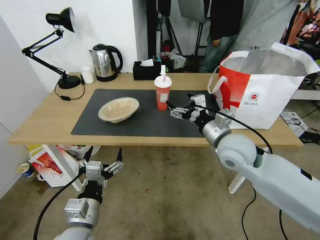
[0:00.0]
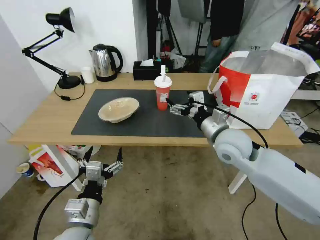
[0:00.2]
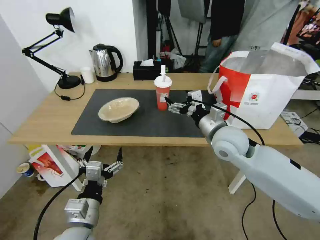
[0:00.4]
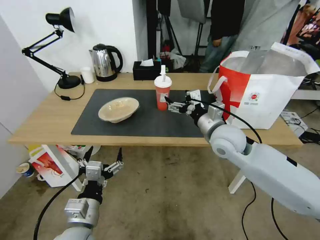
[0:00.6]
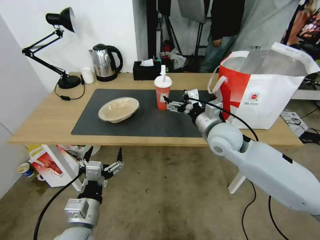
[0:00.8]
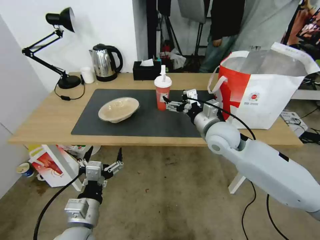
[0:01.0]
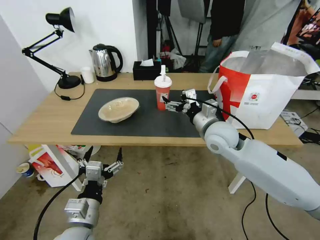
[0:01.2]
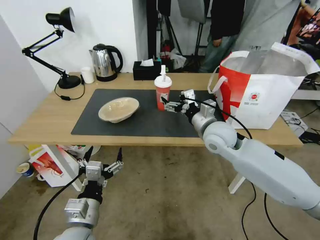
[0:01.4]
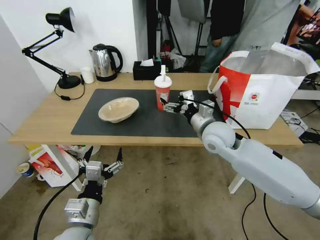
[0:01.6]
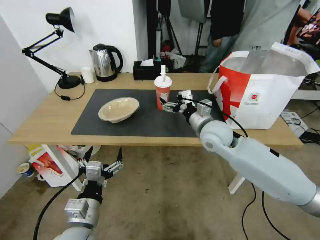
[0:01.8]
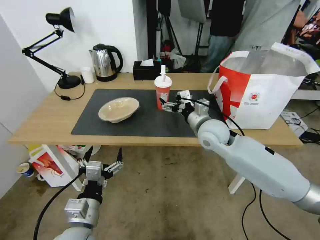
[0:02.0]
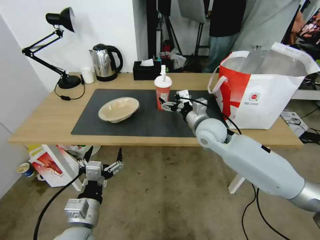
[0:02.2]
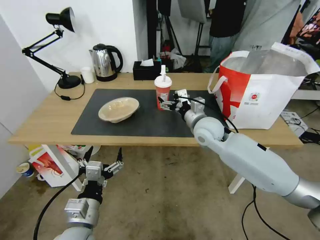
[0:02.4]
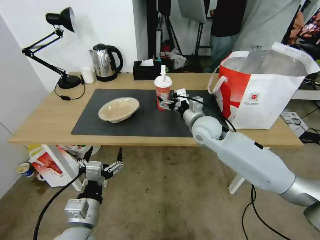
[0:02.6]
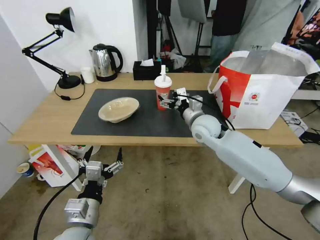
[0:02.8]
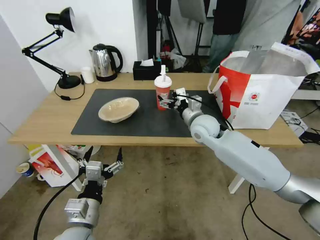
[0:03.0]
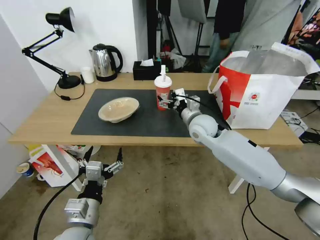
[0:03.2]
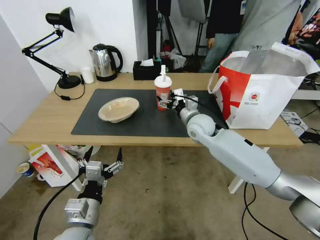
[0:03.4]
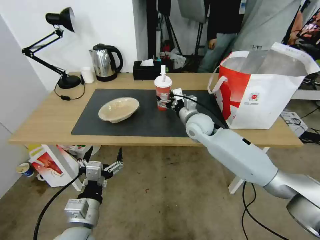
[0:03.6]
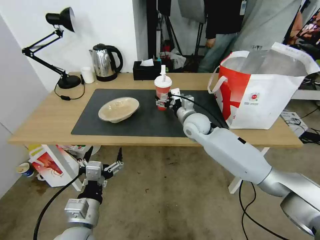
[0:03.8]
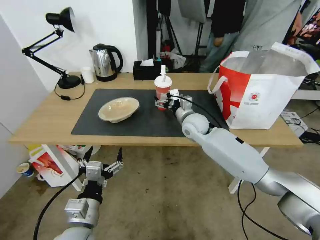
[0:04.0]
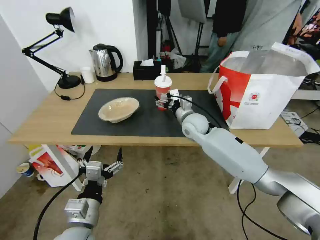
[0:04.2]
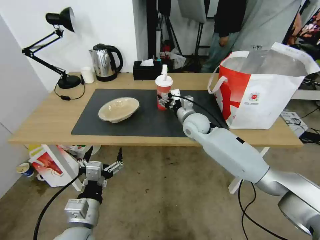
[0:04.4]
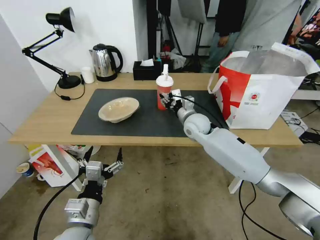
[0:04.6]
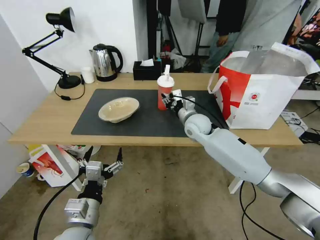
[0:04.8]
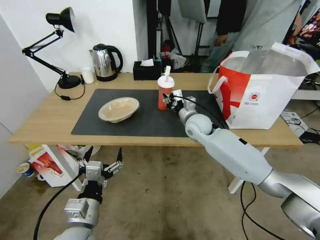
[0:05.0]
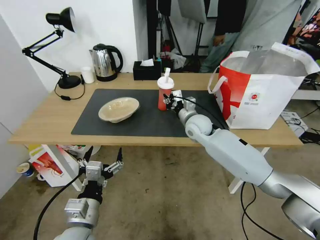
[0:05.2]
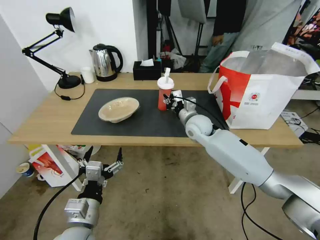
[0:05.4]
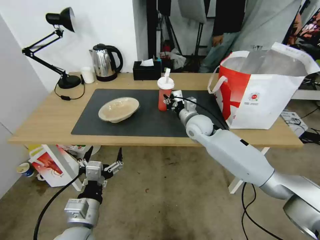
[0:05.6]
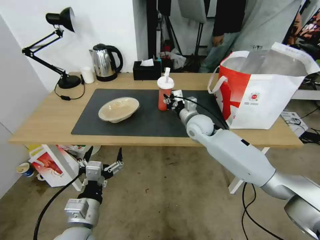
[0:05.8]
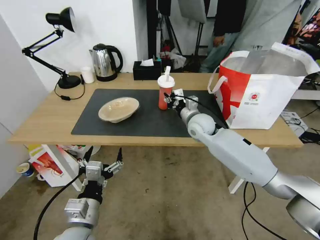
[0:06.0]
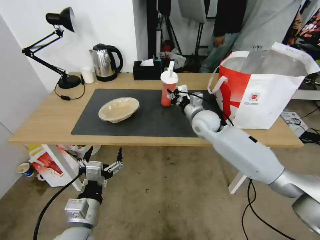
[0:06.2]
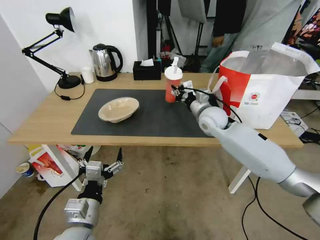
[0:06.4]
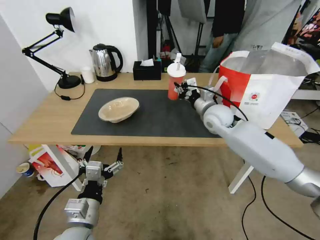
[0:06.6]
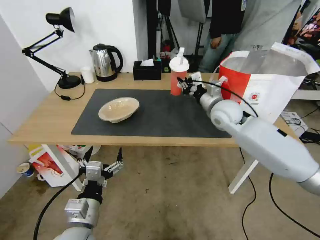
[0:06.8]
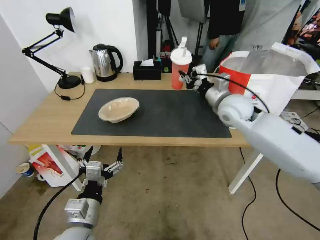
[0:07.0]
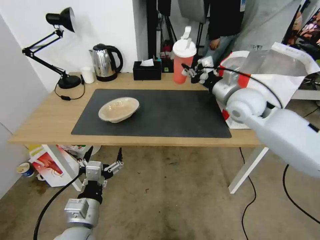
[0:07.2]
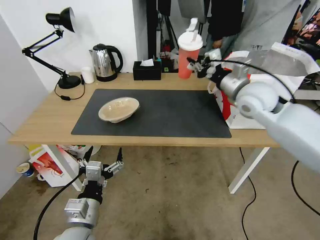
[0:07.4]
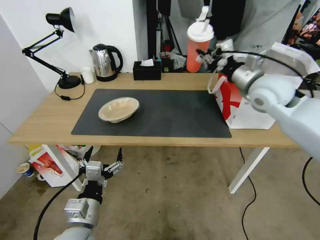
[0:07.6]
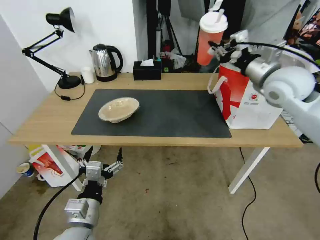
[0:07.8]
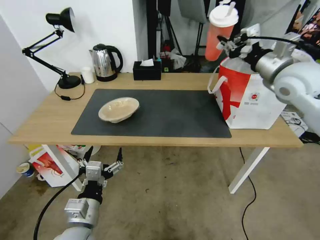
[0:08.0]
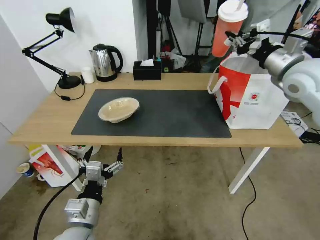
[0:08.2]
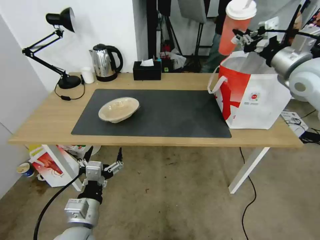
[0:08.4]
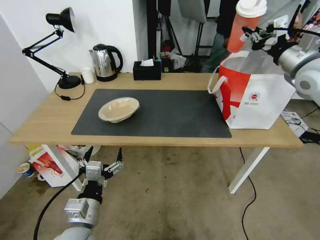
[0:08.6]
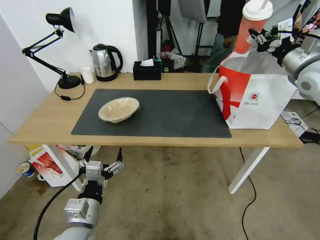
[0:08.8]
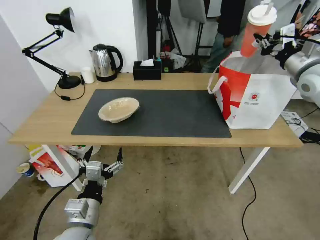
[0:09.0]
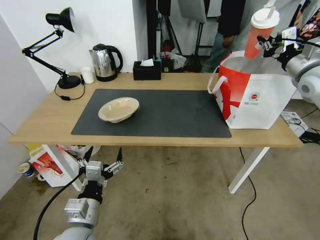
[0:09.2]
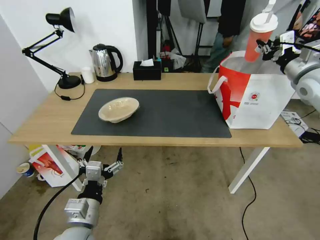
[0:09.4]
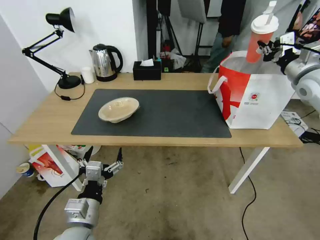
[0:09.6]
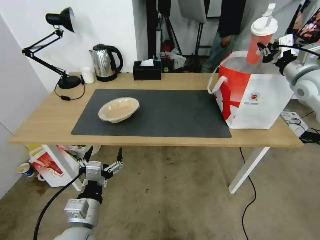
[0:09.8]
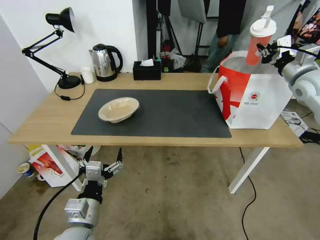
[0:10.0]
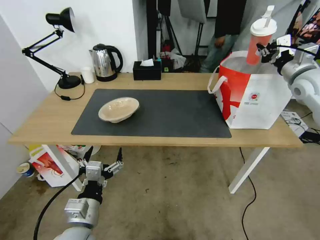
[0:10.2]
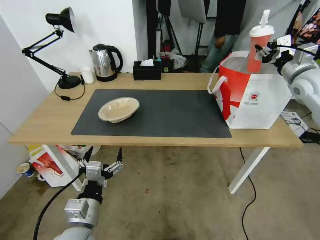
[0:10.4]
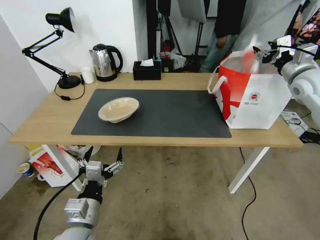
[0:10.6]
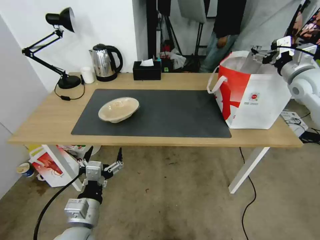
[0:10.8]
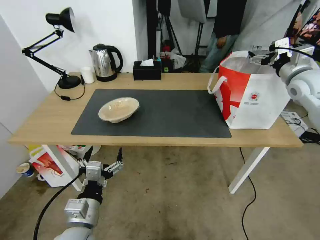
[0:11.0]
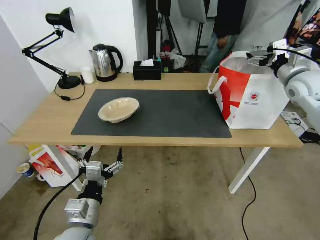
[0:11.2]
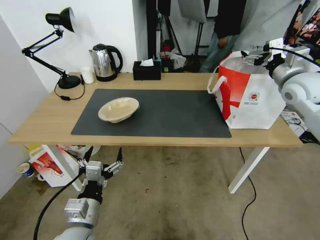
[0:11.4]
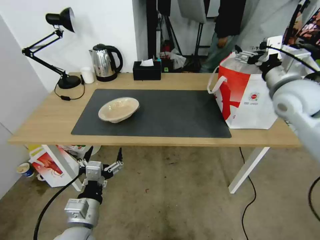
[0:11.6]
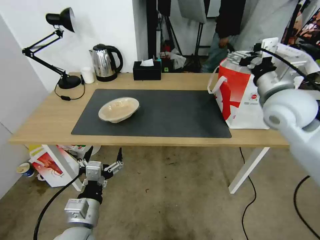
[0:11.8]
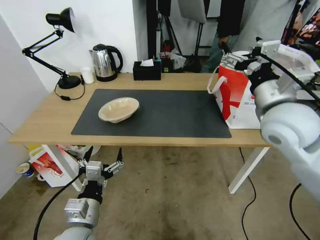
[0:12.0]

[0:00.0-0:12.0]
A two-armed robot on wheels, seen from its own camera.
Task of the whole recording: Pick up the trash from the table and place it into the takeout bag.
0:00.0 to 0:01.6: The right gripper is displaced forward by about 5 cm.
0:01.6 to 0:03.0: The right gripper heads forward, covering approximately 5 cm.
0:03.0 to 0:04.4: The right gripper moves about 5 cm.
0:04.4 to 0:06.0: The right gripper closes.
0:06.0 to 0:07.6: The right gripper moves upward and to the right, about 25 cm.
0:07.6 to 0:09.0: The right gripper goes about 15 cm to the right.
0:09.0 to 0:10.4: The grippers move only a little.
0:10.4 to 0:12.0: The right gripper is displaced to the left and backward by about 25 cm, and opens.

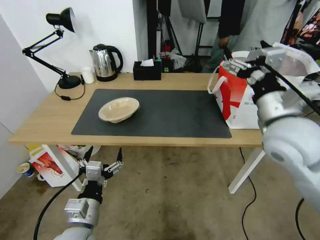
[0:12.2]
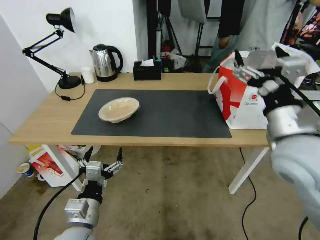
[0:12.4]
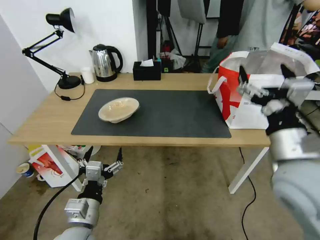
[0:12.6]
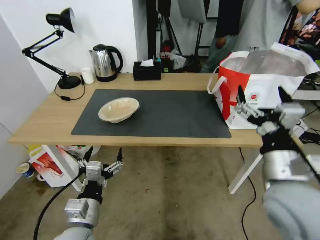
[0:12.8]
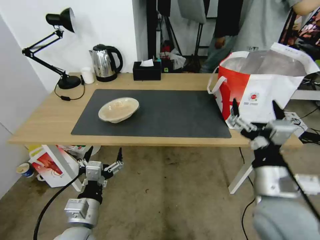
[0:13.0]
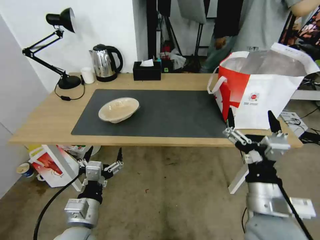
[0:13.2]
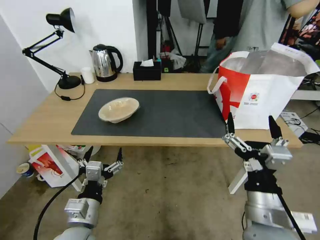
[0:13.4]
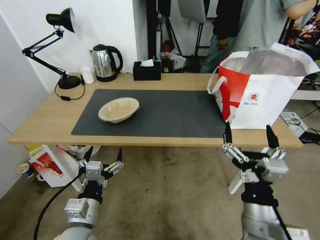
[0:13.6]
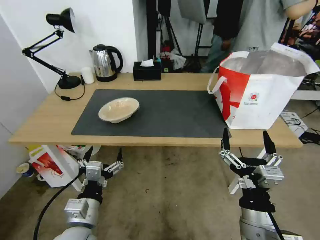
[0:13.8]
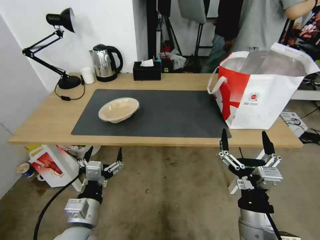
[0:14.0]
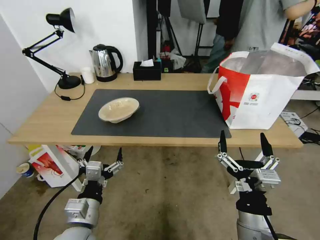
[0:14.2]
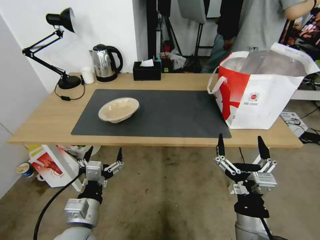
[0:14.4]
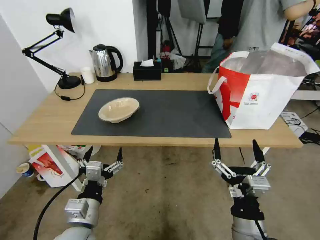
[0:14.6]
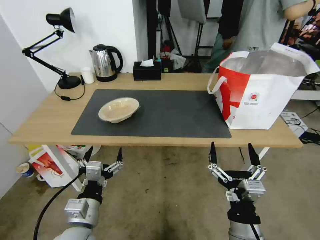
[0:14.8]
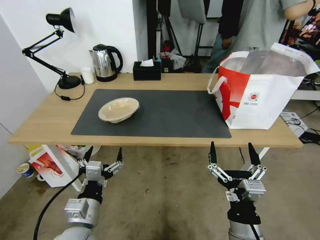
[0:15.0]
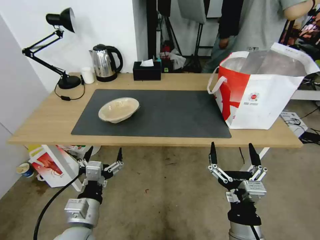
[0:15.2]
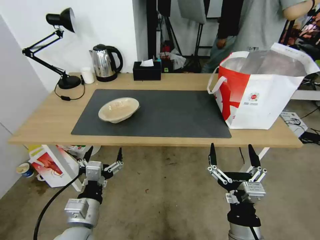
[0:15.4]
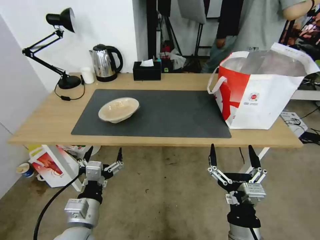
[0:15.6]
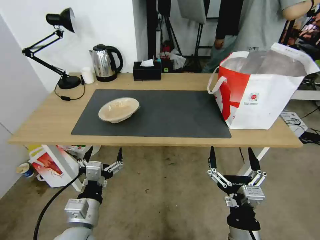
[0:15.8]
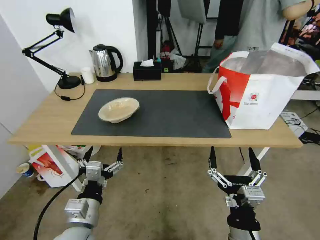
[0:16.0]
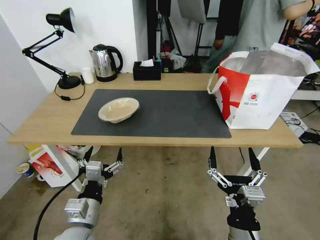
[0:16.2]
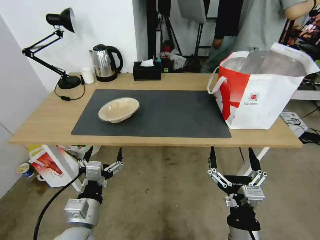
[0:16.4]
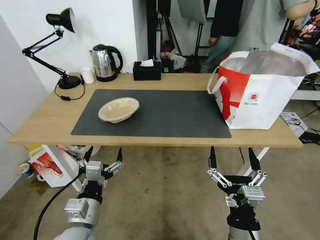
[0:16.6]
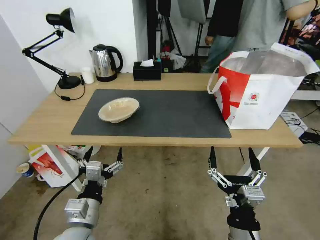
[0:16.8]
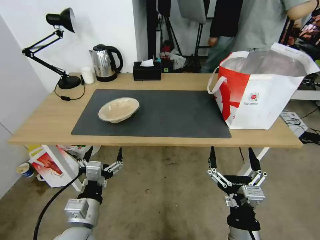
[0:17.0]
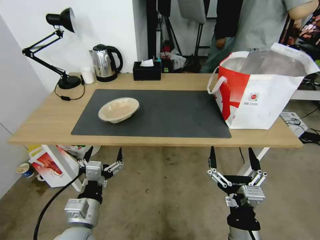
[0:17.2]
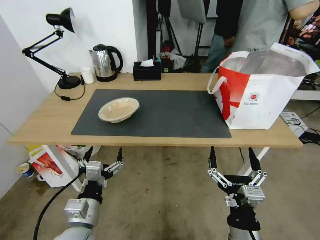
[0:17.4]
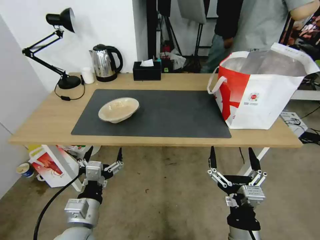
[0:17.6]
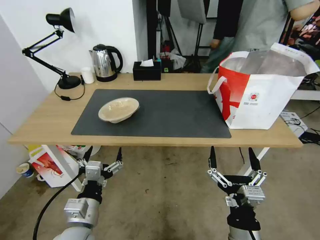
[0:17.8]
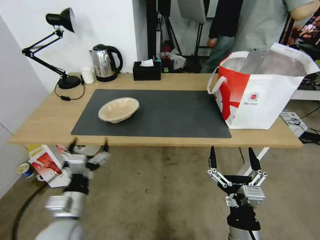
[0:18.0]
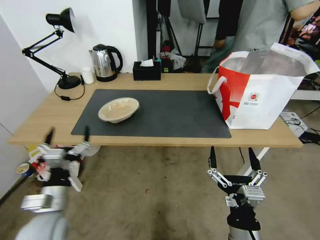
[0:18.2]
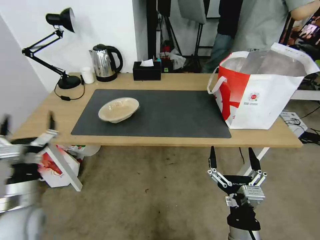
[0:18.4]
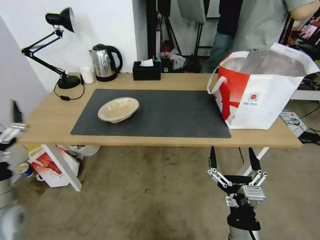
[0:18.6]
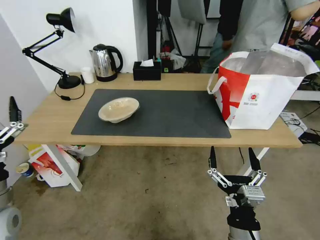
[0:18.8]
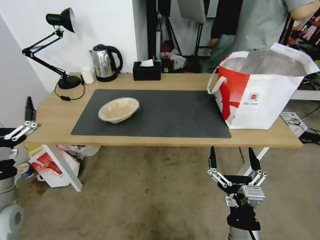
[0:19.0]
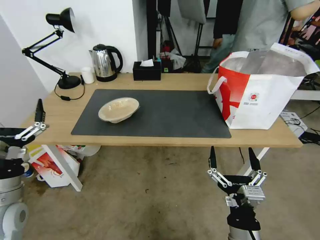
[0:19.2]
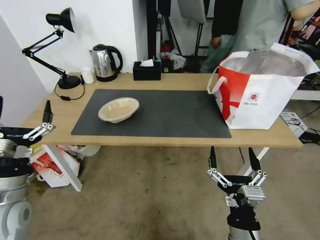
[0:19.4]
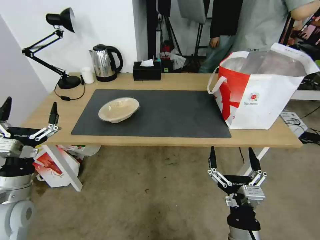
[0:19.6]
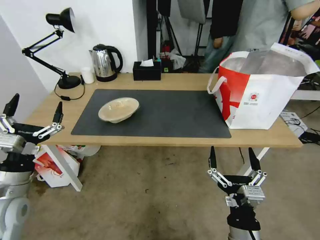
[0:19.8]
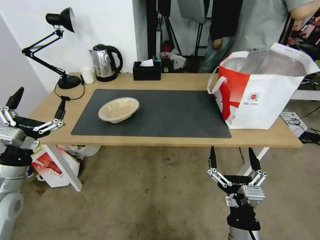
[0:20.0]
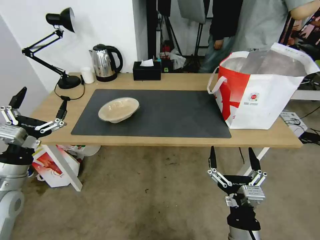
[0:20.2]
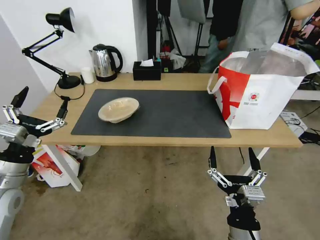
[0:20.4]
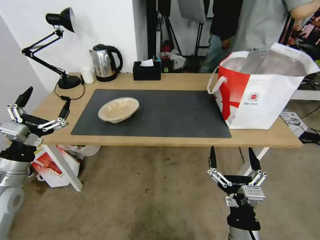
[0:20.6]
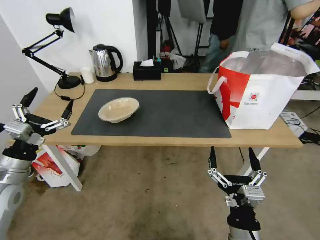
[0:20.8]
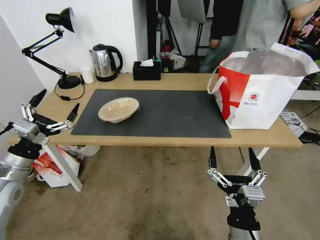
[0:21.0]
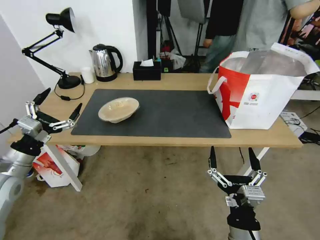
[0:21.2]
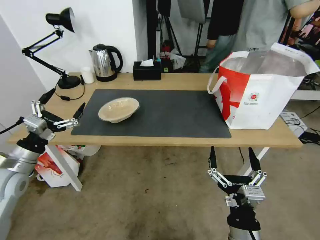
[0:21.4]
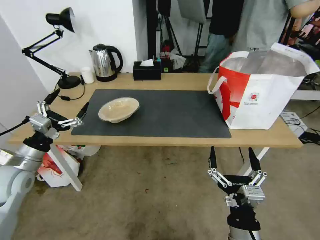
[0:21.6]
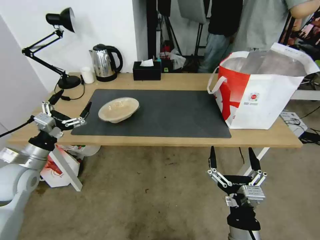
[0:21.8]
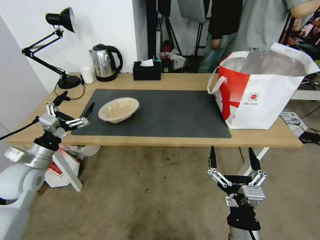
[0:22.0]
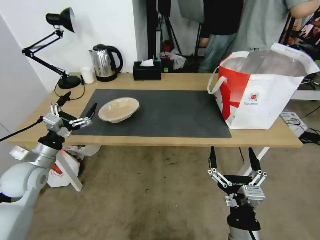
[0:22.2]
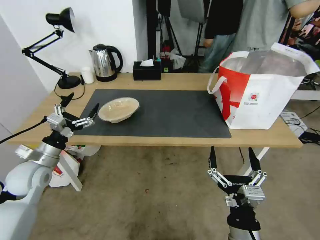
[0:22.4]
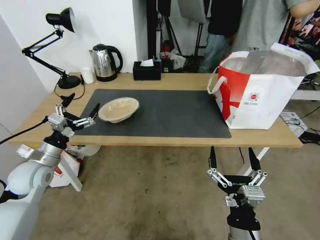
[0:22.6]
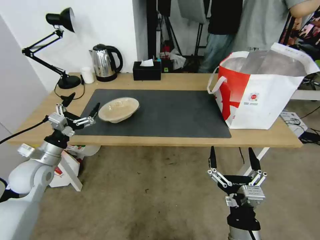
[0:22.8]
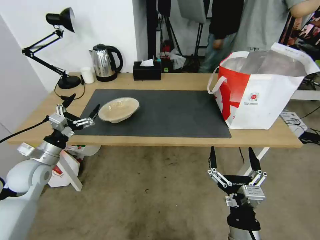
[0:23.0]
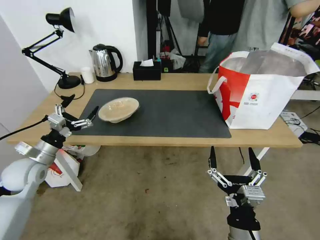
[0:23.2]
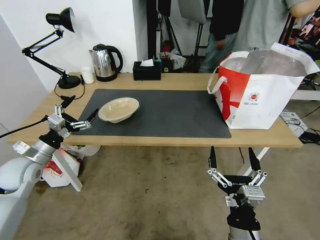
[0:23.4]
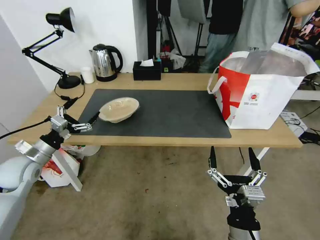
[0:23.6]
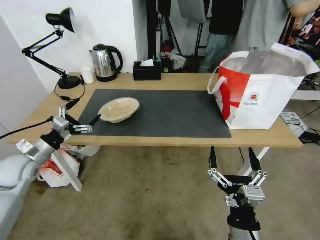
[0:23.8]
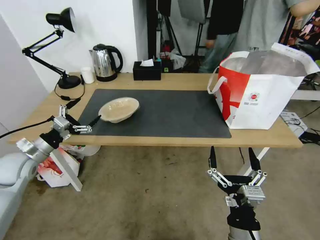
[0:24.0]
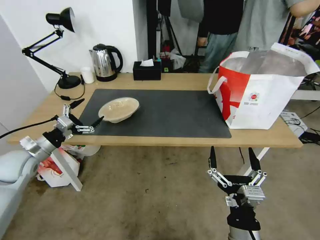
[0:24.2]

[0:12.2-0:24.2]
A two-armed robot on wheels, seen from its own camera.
Task of the whole recording: Pick up the trash from the table and place it into the takeout bag.
0:12.2 to 0:13.8: The right gripper is displaced backward and downward by about 25 cm.
0:13.8 to 0:15.2: There are only small adjustments of the grippers.
0:15.2 to 0:16.6: The two grippers keep their place.
0:16.6 to 0:18.2: The left gripper shifts some 10 cm to the left.
0:18.2 to 0:19.8: The left gripper moves to the left, roughly 10 cm.
0:19.8 to 0:21.2: The left gripper shifts some 5 cm forward.
0:21.2 to 0:22.6: The left gripper shifts by some 5 cm.
0:22.6 to 0:24.2: The left gripper is displaced to the left by about 5 cm.
